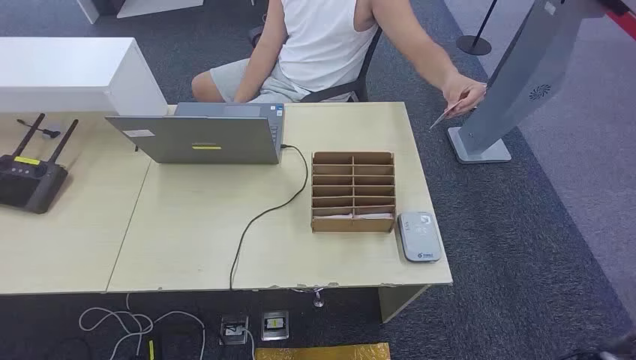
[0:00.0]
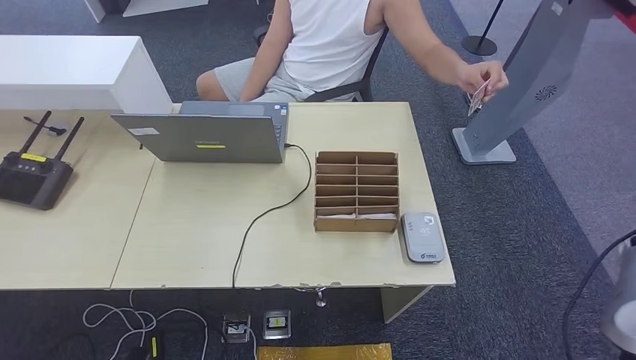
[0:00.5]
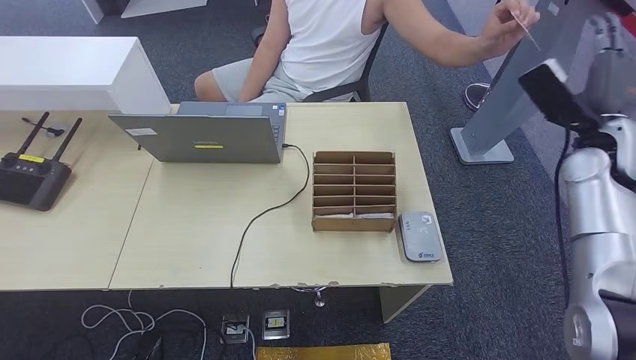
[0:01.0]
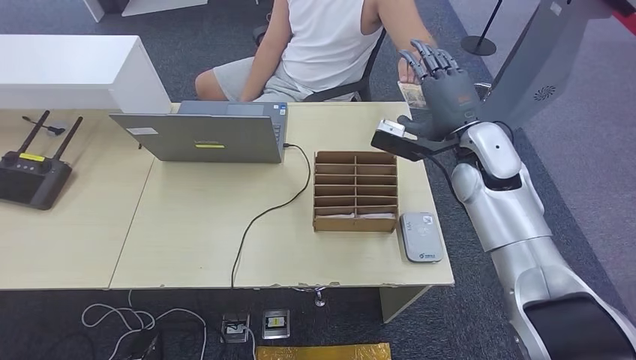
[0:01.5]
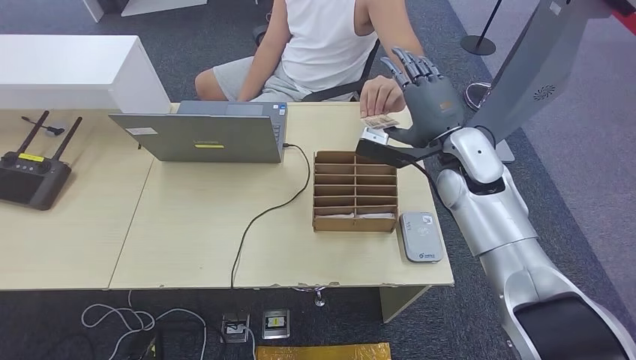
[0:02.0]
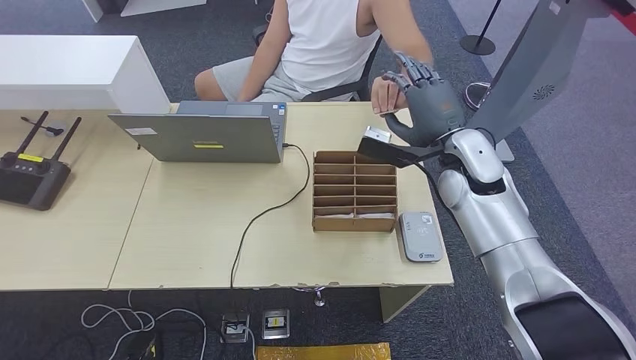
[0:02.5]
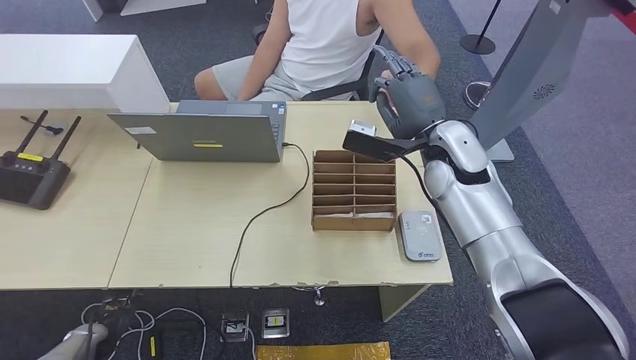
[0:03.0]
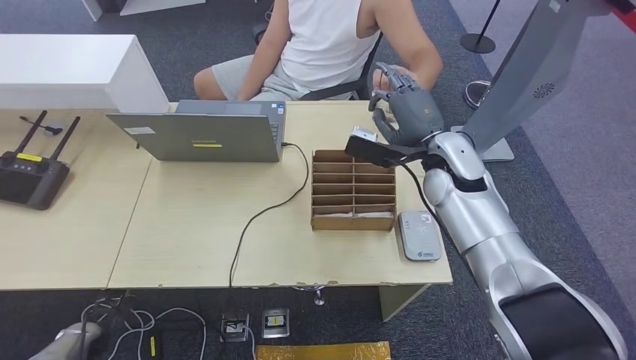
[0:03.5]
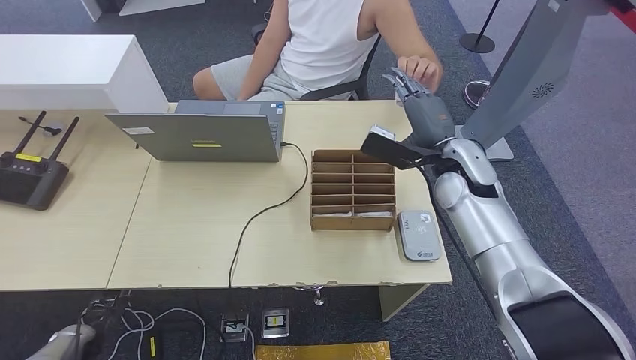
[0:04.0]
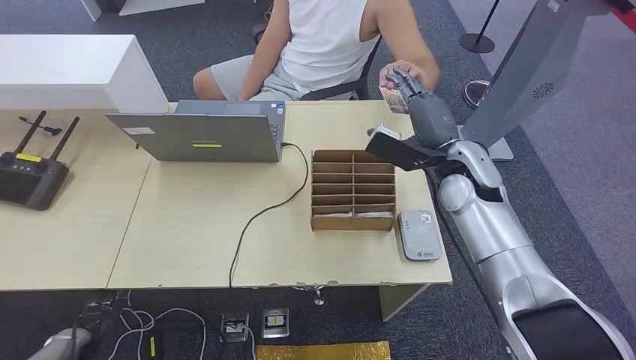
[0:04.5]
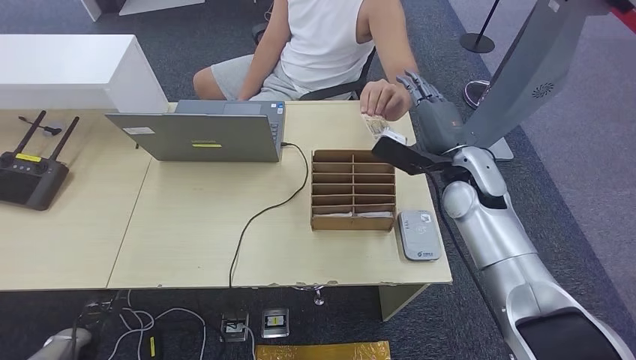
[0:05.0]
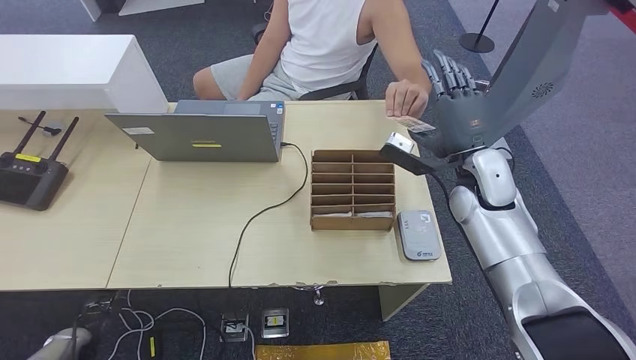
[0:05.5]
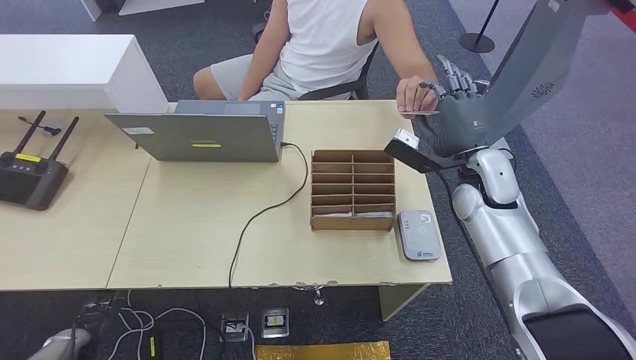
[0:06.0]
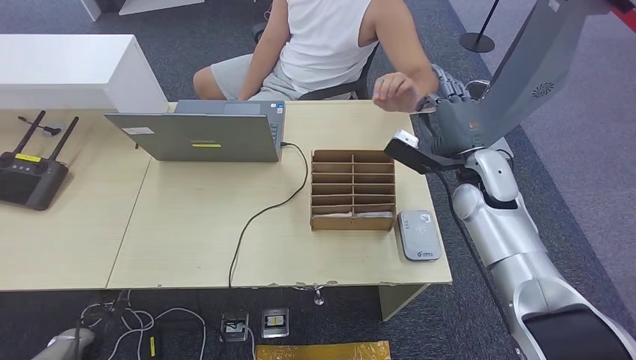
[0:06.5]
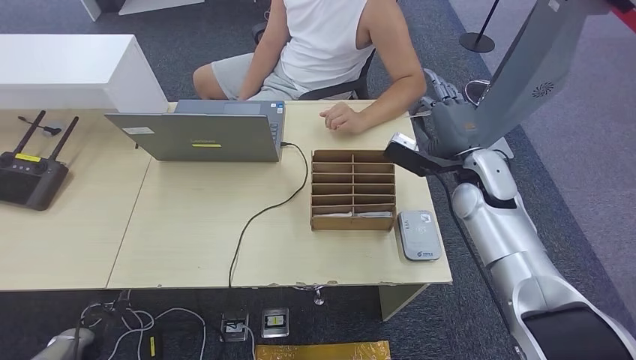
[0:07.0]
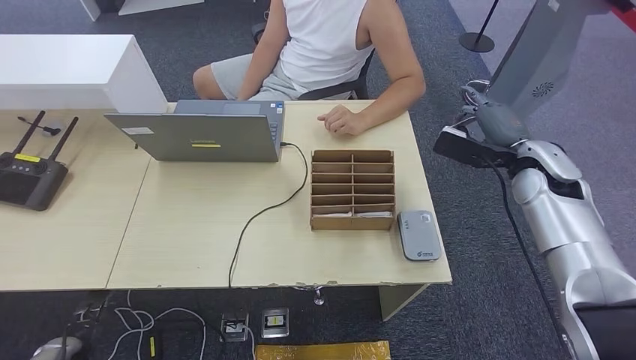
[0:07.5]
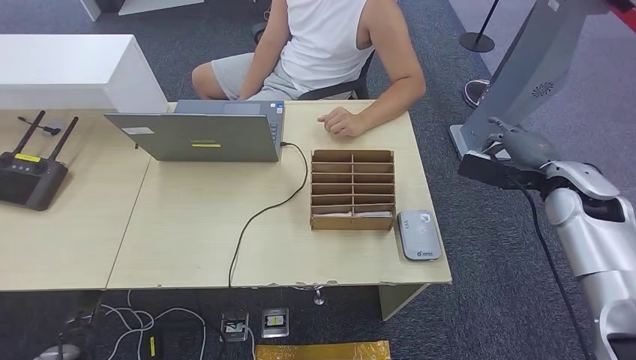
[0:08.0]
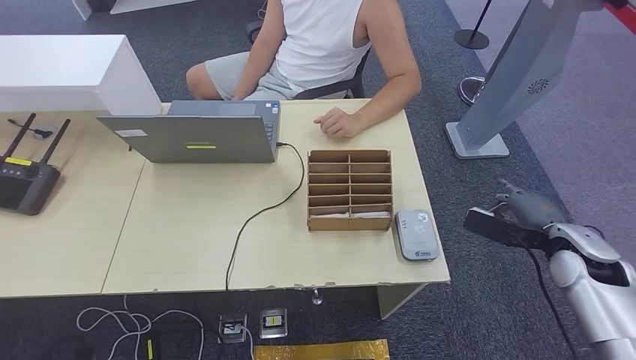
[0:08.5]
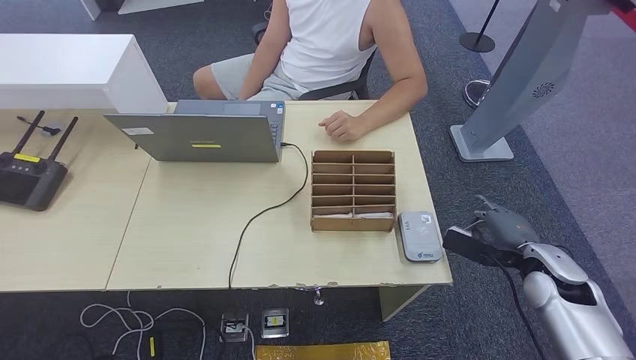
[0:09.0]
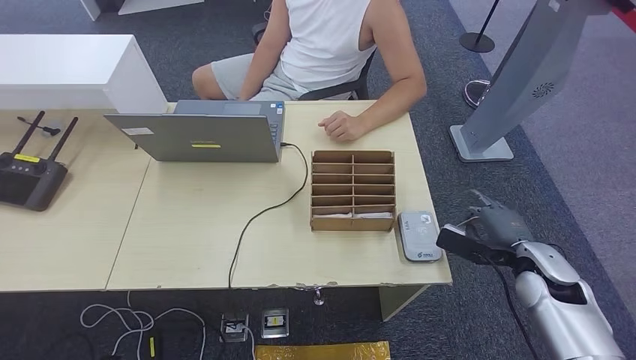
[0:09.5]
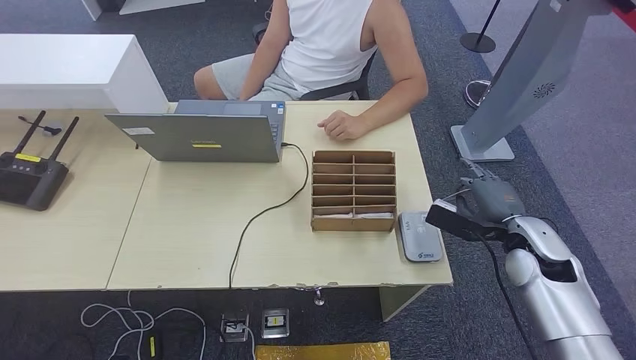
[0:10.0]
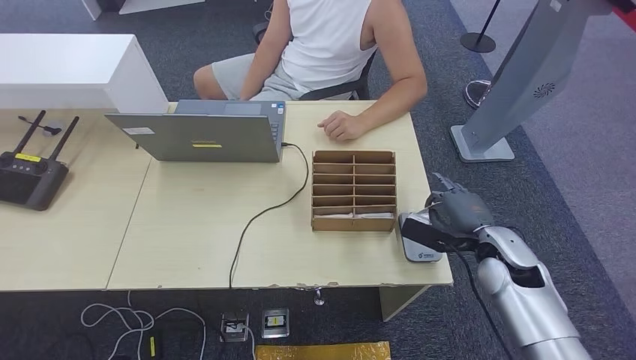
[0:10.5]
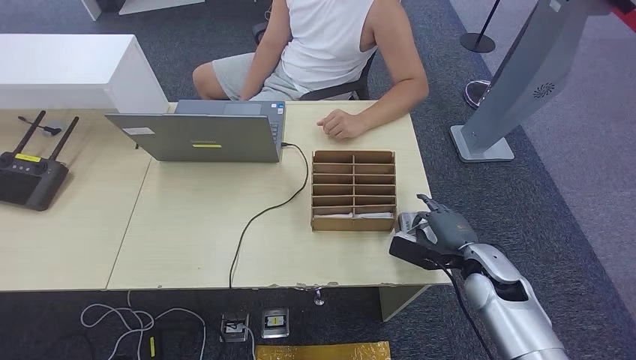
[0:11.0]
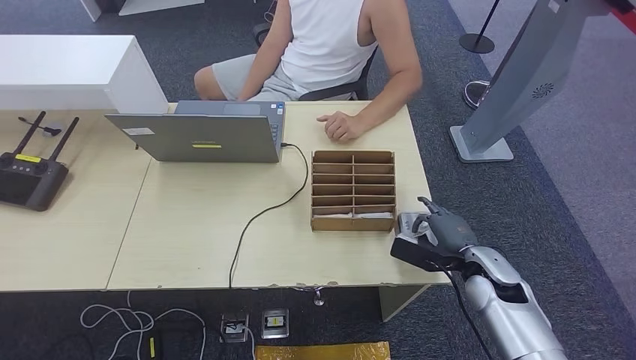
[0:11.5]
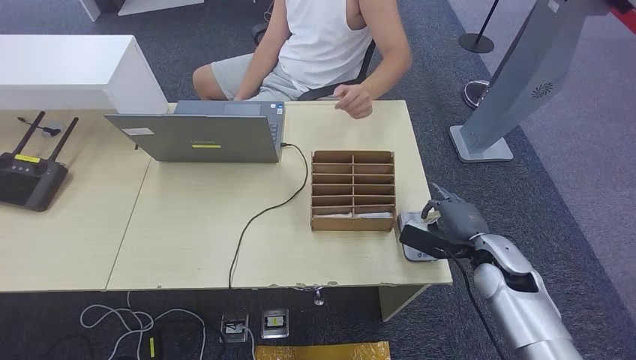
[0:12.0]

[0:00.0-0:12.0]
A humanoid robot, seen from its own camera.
Step, 0:00.0 to 0:06.5: Take the ID card from the person's hand.
Step, 0:08.0 to 0:10.5: Place the ID card on the card reader.
0:02.0 to 0:04.0: The left hand goes roughly 15 cm forward, upward and to the left.
0:06.0 to 0:08.0: The right hand is displaced to the right by about 15 cm.
0:08.0 to 0:10.0: The right hand is displaced downward, backward and to the left by roughly 10 cm; the left hand is displaced backward, downward and to the right by roughly 15 cm.
0:10.0 to 0:12.0: The right hand shifts by approximately 5 cm.

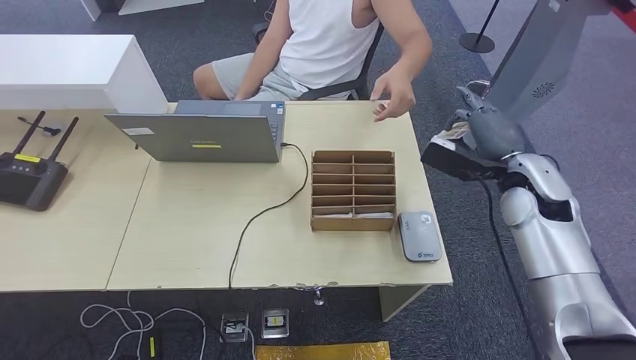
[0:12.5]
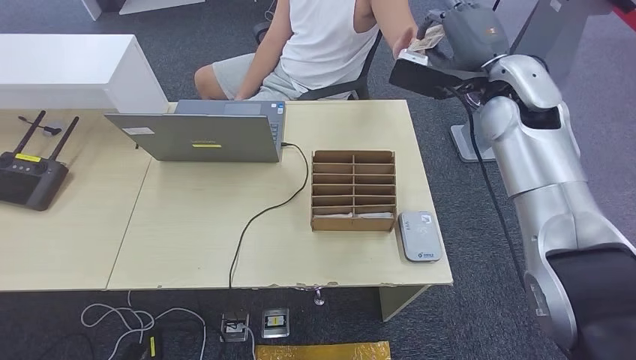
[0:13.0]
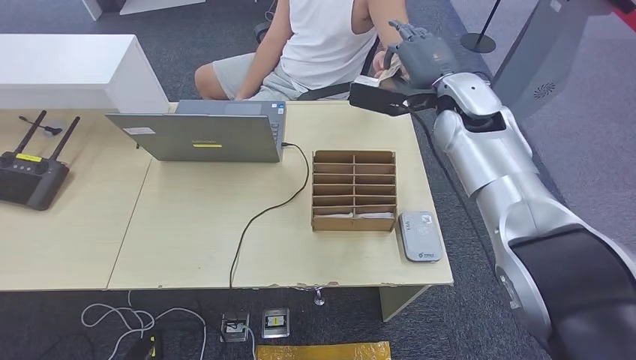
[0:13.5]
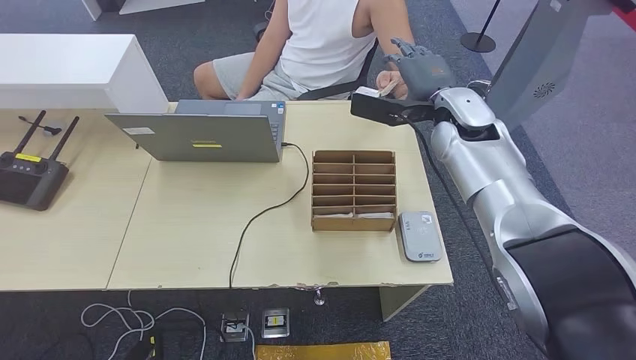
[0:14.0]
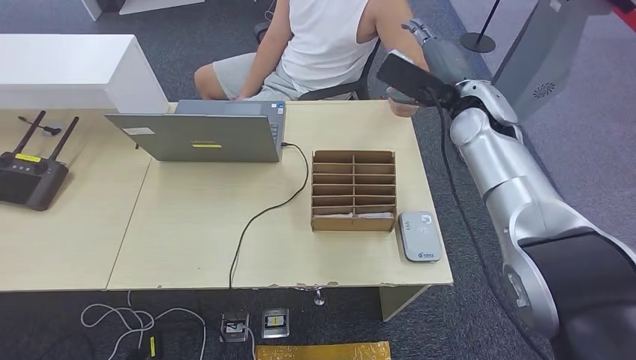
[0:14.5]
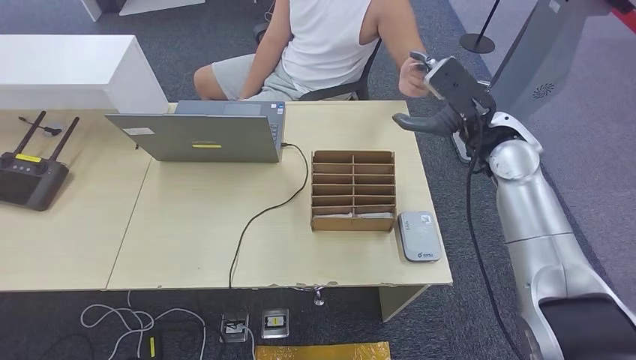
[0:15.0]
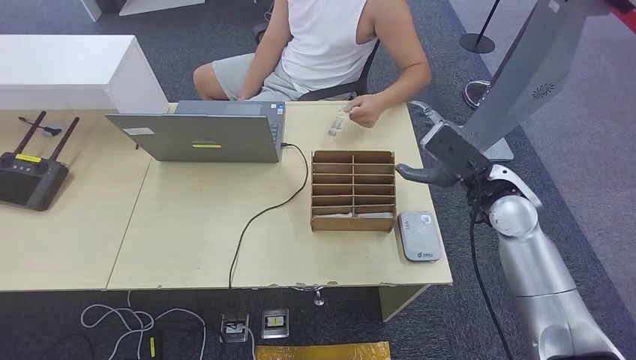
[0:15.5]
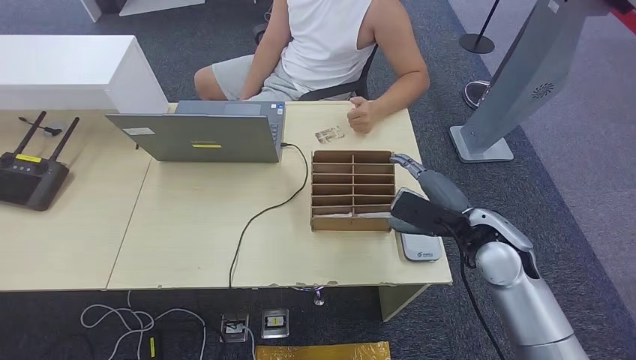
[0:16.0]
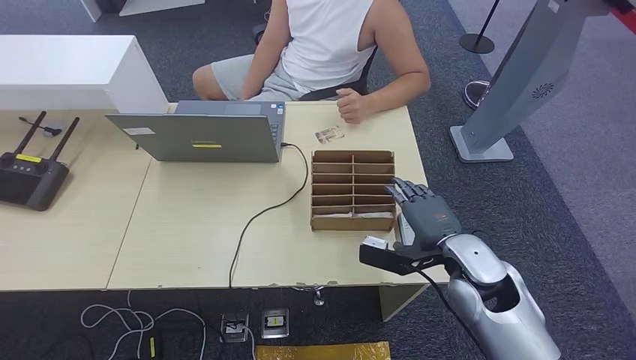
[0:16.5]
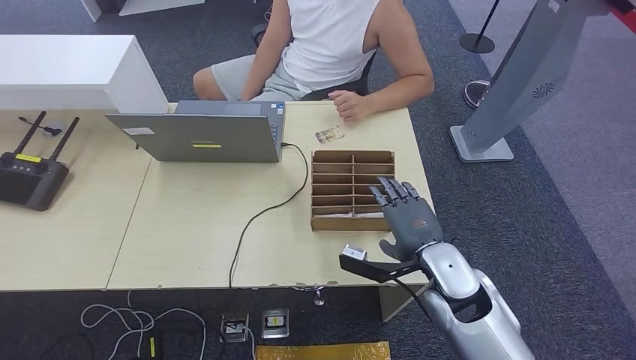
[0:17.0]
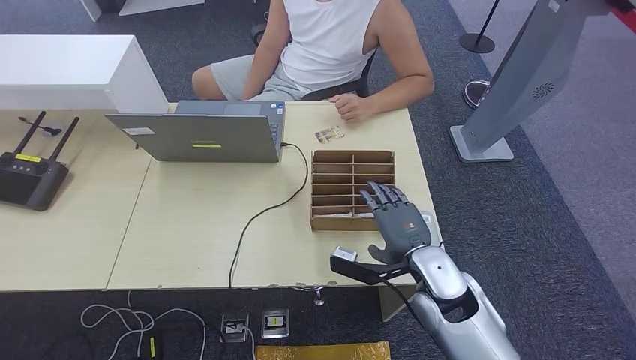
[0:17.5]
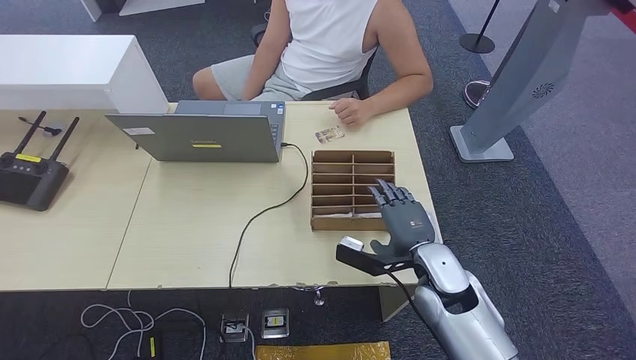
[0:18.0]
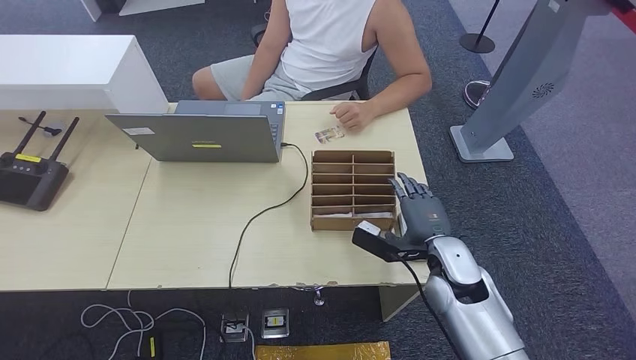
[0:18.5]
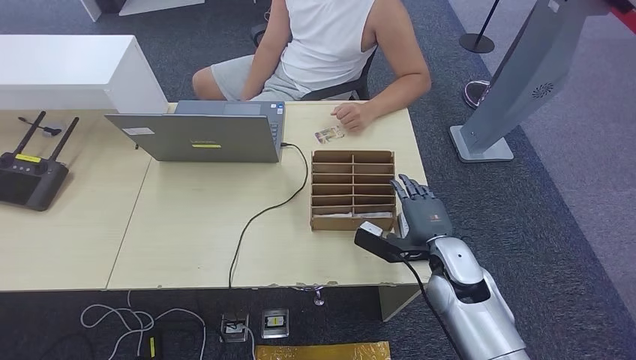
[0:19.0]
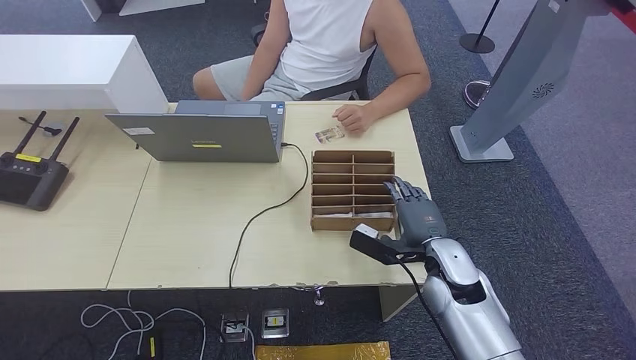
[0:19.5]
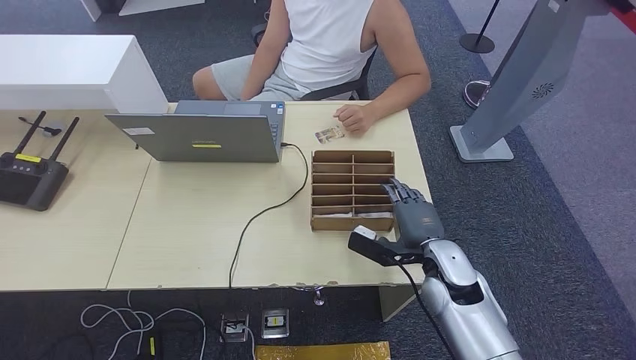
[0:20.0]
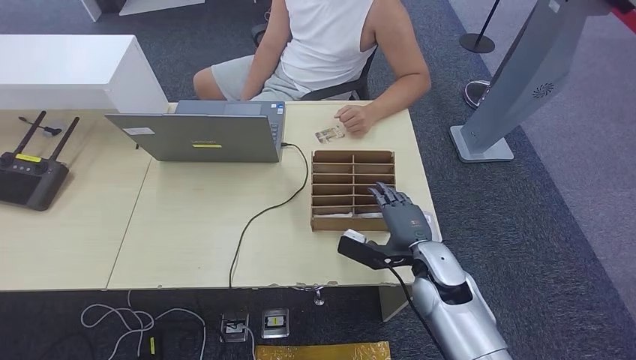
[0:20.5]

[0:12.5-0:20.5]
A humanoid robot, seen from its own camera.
Step, 0:12.5 to 0:14.5: Hand the ID card to the person.
0:12.5 to 0:14.5: The right hand heads upward, forward and to the left, covering approximately 15 cm.
0:14.5 to 0:16.5: The right hand goes roughly 25 cm backward and downward.
0:18.5 to 0:20.5: The hands stay close to where they were, moving slightly.
